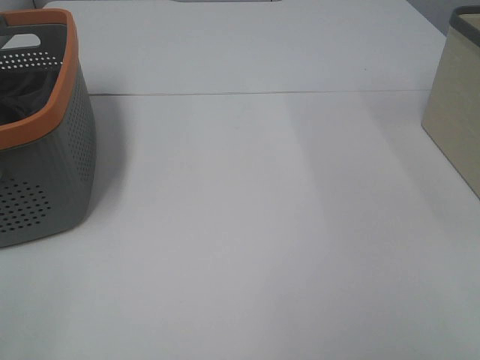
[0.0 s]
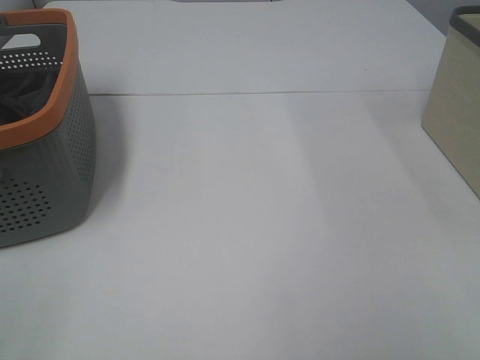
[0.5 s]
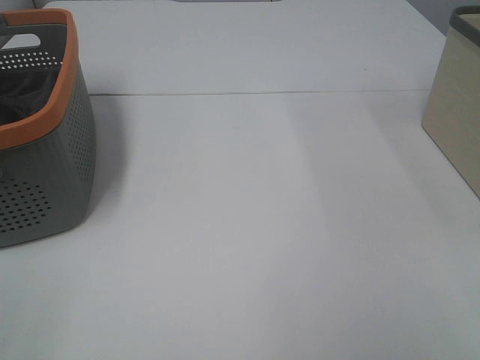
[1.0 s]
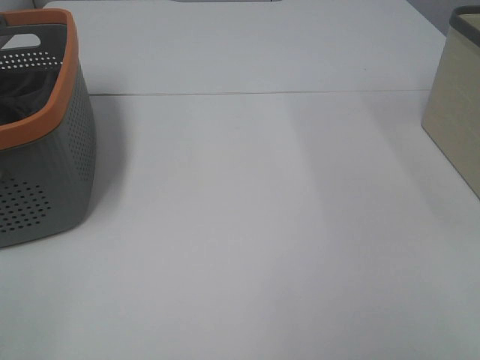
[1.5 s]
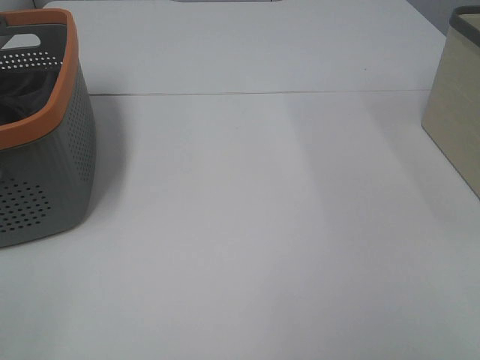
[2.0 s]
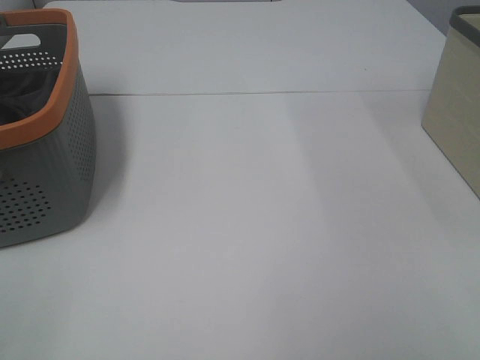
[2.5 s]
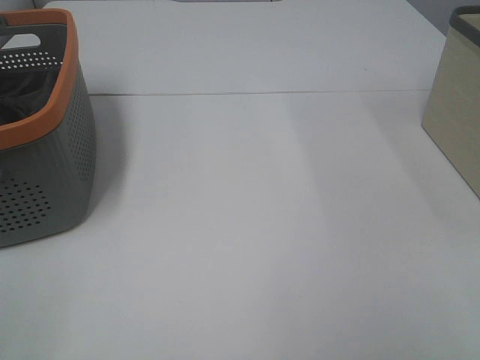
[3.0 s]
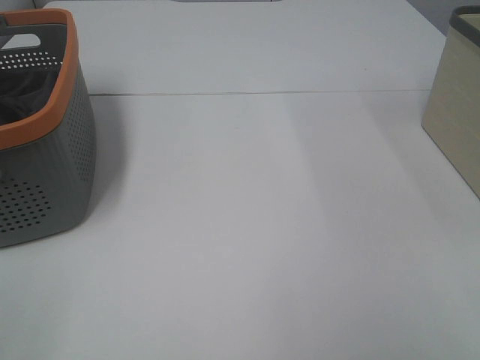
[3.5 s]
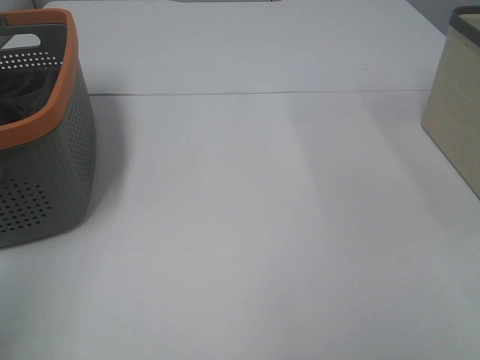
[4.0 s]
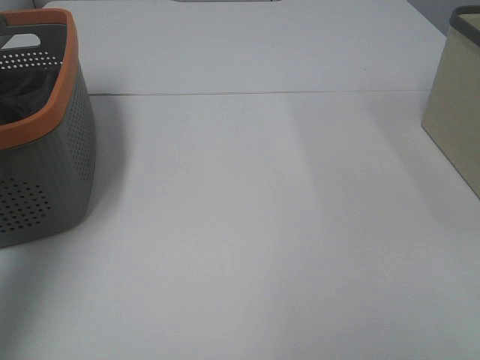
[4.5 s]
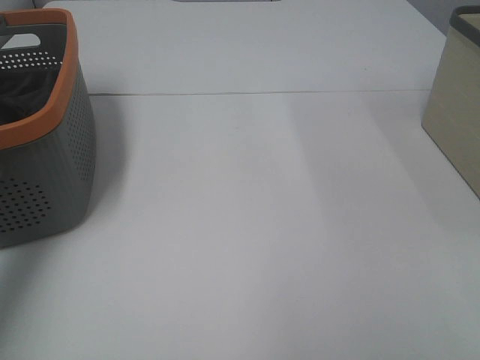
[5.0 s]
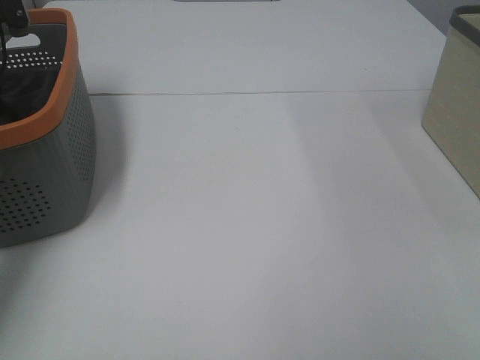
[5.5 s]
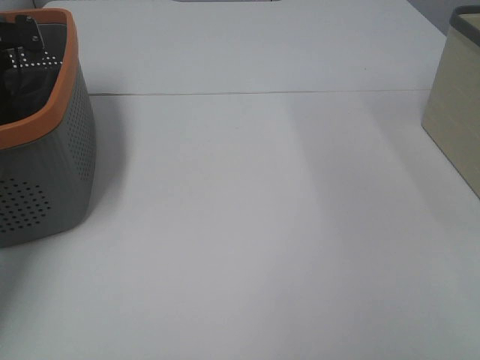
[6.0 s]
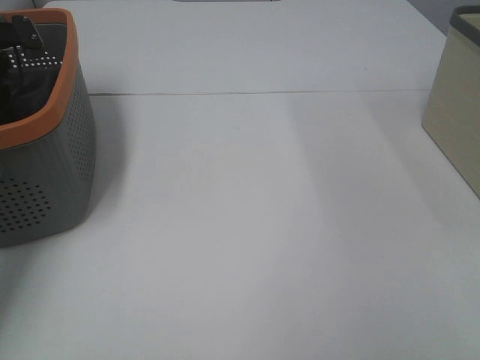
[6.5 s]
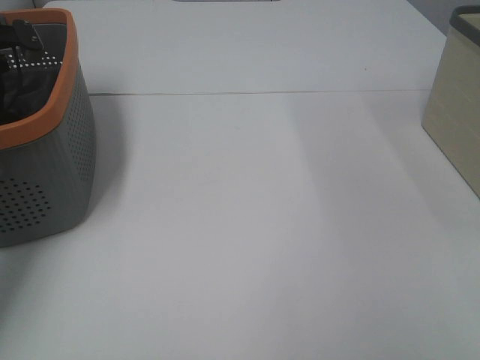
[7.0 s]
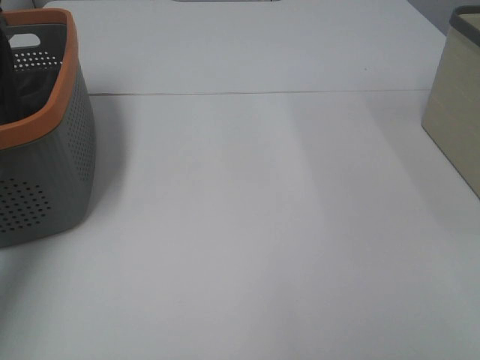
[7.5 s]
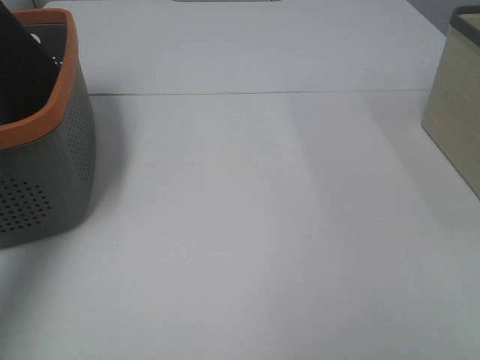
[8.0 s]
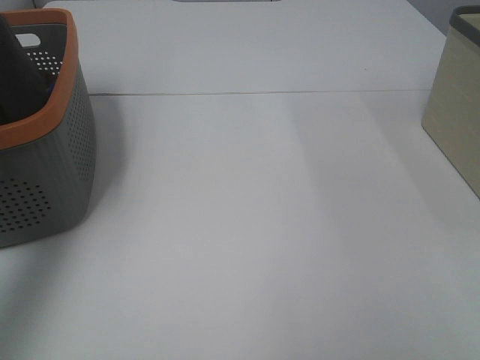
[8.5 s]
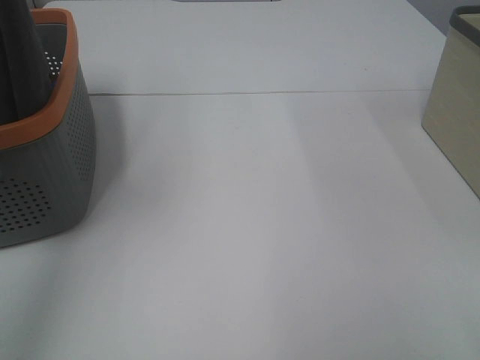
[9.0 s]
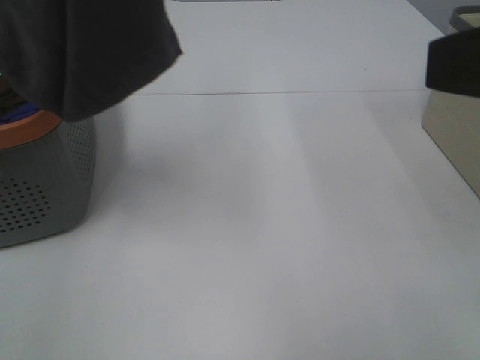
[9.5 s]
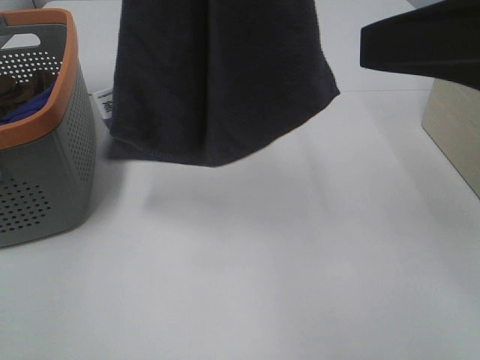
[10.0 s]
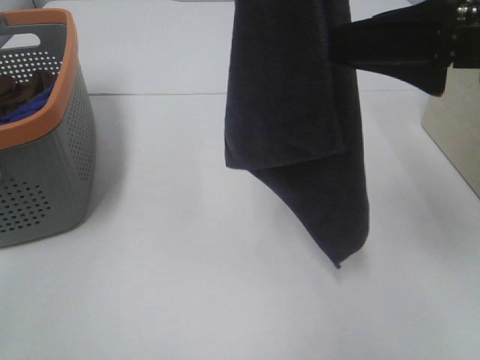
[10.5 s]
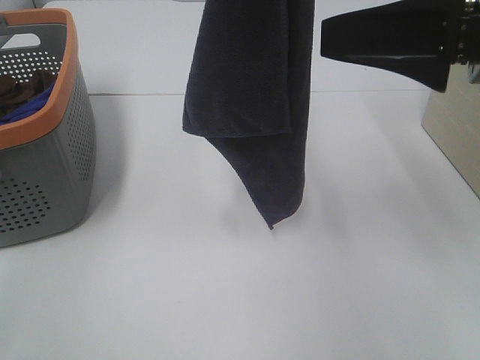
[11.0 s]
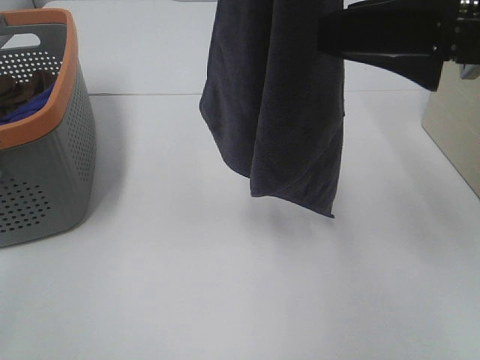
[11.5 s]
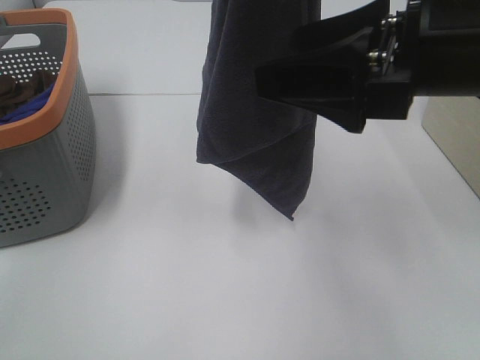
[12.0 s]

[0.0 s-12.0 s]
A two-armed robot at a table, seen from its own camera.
Task of the whole recording: Remove the towel and place it.
0.0 to 2.0 s: Both grippers stay about where they are.
4.0 to 6.0 s: The left gripper goes roughly 40 cm forward and downward, and closes up.
6.0 to 8.0 s: The left gripper moves upward and backward, some 30 cm, and closes its fingers.
8.0 to 10.0 s: The right gripper moves forward, about 20 cm. Meanwhile the left gripper shifts approximately 25 cm to the right, backward and upward.
10.0 to 12.0 s: The right gripper shifts roughly 5 cm to the left. The left gripper changes place by some 5 cm.

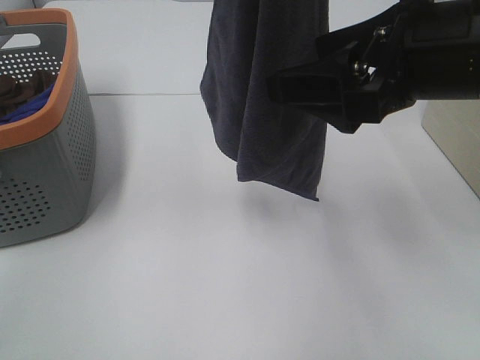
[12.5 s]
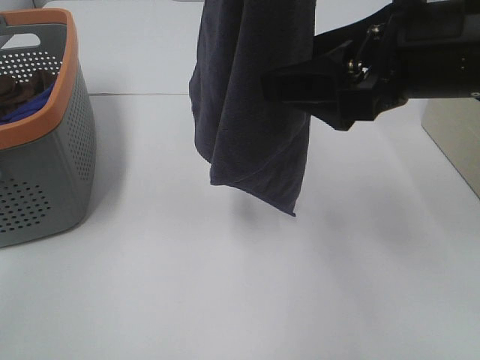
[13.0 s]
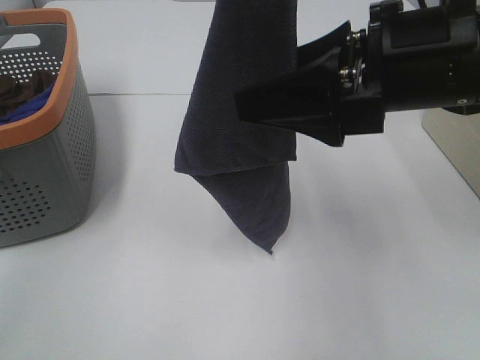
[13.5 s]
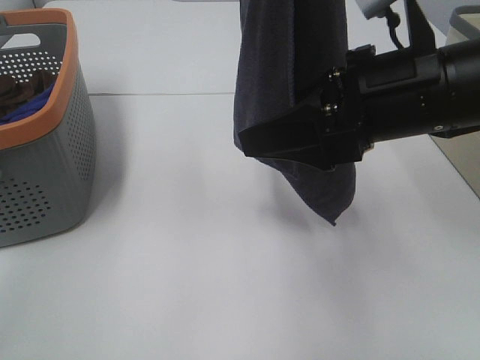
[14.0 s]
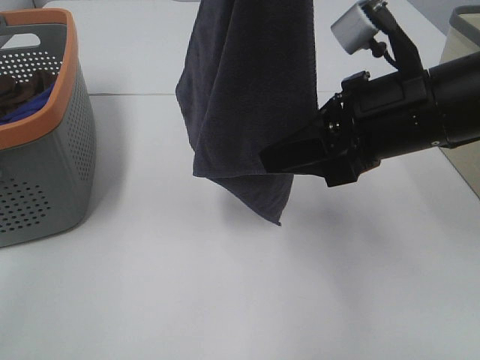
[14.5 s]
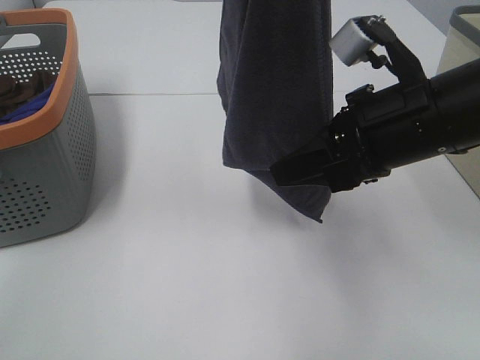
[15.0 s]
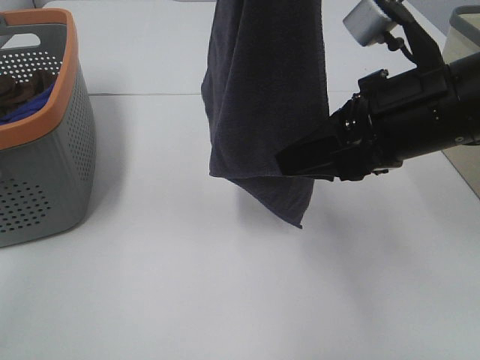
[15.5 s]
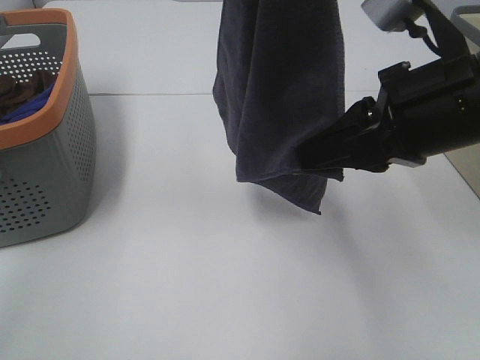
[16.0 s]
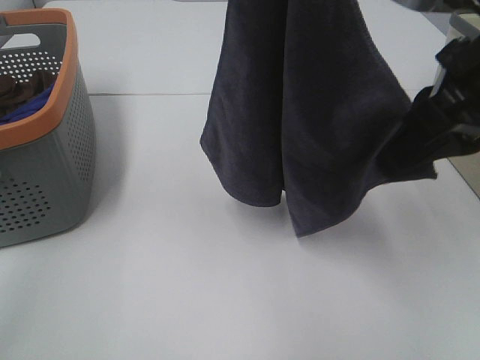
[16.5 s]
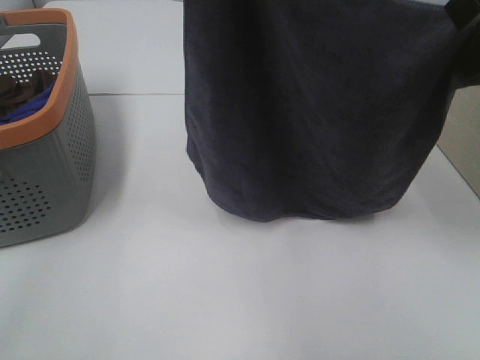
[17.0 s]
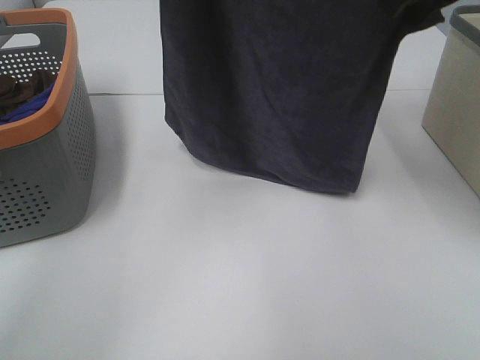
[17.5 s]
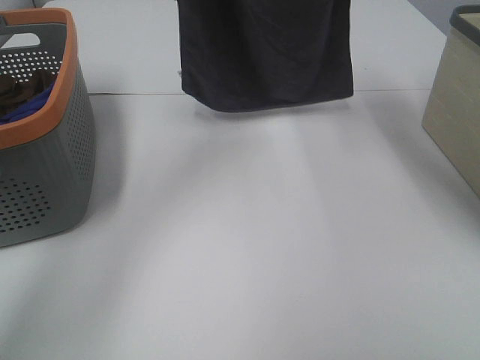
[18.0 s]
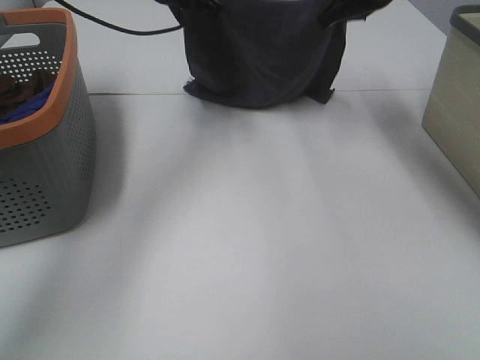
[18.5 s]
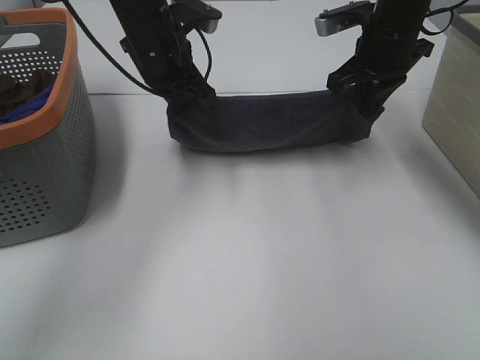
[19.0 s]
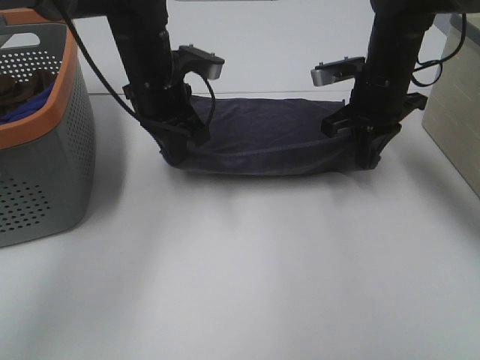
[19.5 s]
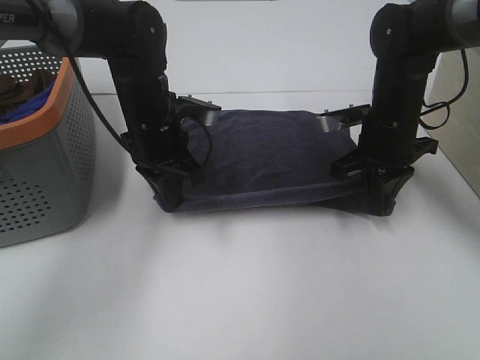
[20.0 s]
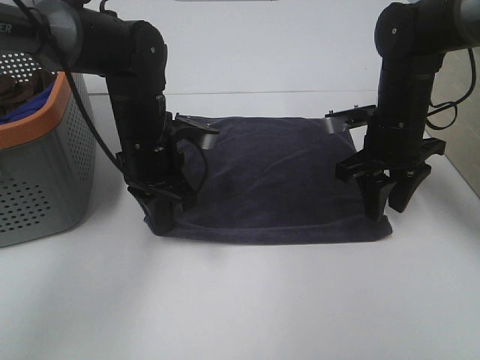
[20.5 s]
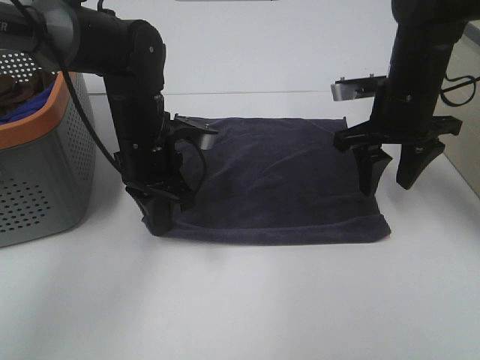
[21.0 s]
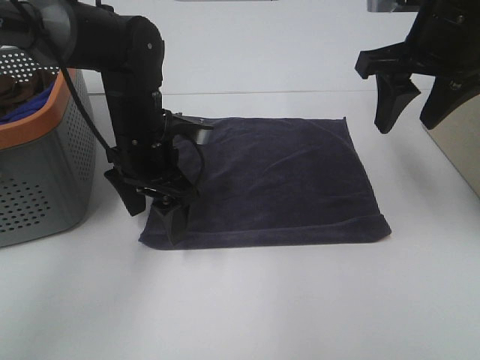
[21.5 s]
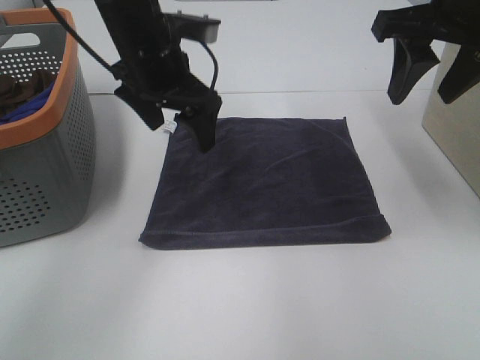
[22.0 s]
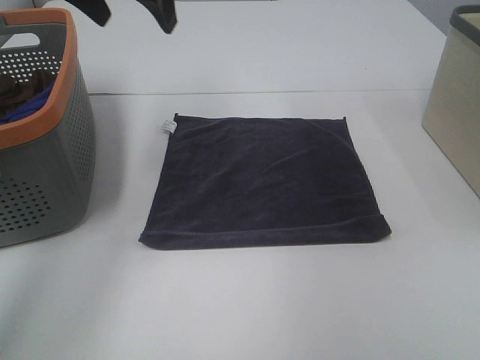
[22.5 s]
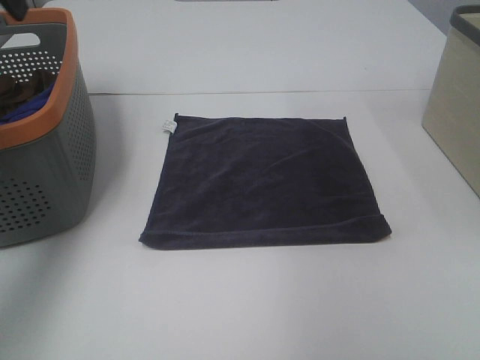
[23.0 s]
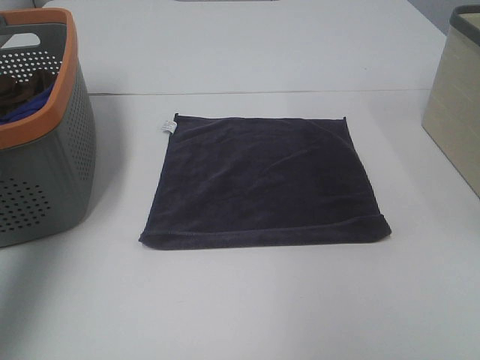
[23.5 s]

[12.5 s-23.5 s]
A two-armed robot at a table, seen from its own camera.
Task of the whole recording: Remove the towel and place it.
Step, 14.5 to 16.0 s: Right hand: spread the grey towel flat on the table.
Step, 14.5 to 17.0 s: Left hand: spread the grey towel flat on the table.
12.5 to 14.5 s: The right gripper shifts some 5 cm downward, and closes its fingers.
14.5 to 16.0 s: The grippers move only a little.
16.0 to 18.0 s: The left gripper shifts roughly 25 cm forward and downward. Meanwhile the right gripper travels forward and upward by some 25 cm.
18.0 to 20.0 s: The grippers both shift downward by roughly 25 cm.
20.0 to 21.5 s: The left gripper opens; the right gripper shifts some 15 cm upward, and opens.
21.5 to 23.5 s: The left gripper heads upward, to the left and backward, covering some 35 cm. Meanwhile the right gripper heads backward, to the right and upward, covering some 15 cm.

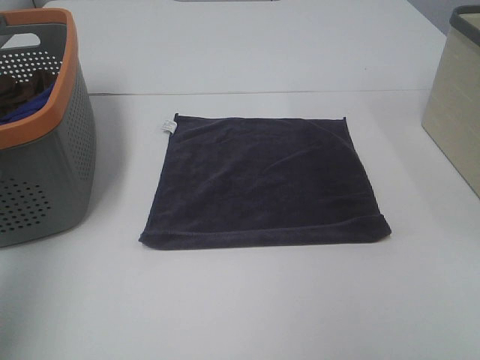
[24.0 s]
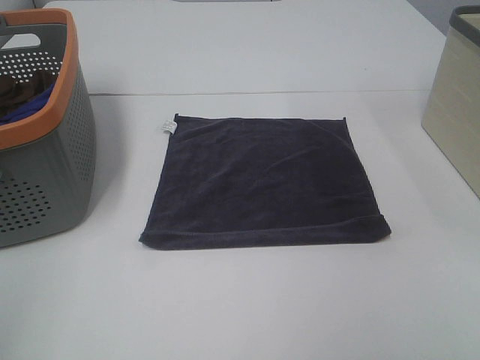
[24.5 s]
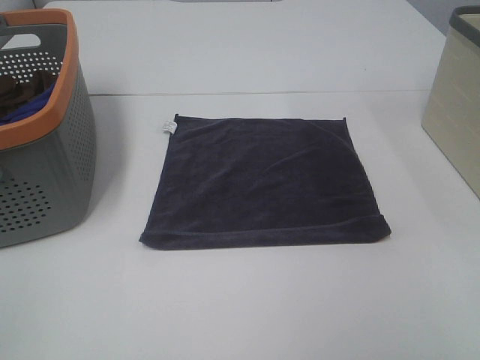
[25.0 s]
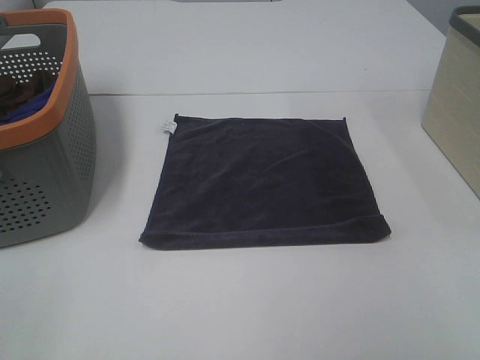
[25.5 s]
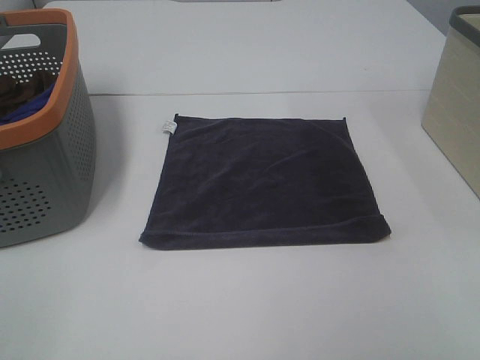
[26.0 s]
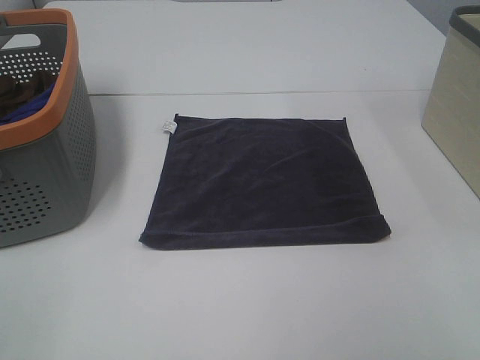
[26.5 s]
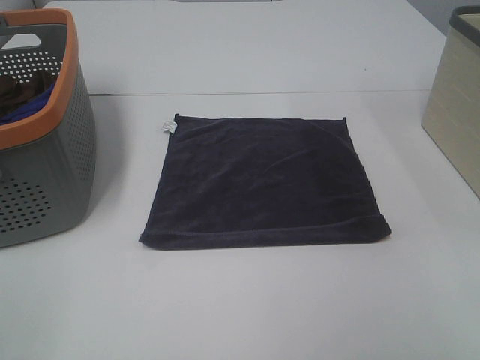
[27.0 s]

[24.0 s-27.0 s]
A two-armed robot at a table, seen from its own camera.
Task of the whole recording: Remove the towel and place it.
24.0 to 25.5 s: The left gripper moves backward and downward, about 15 cm.
25.5 to 27.0 s: The two grippers keep their place.
